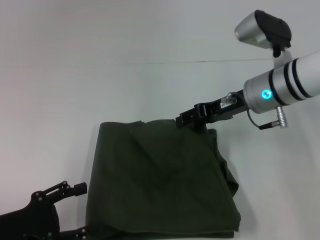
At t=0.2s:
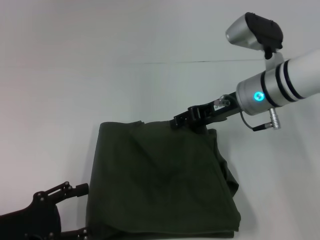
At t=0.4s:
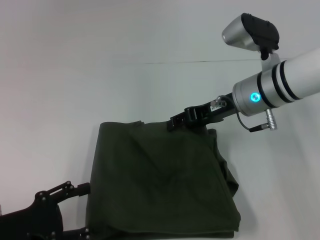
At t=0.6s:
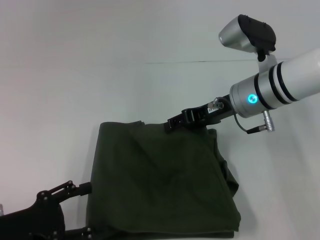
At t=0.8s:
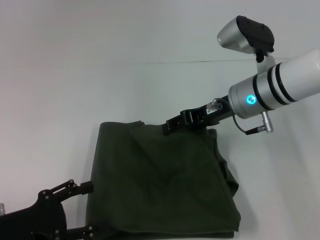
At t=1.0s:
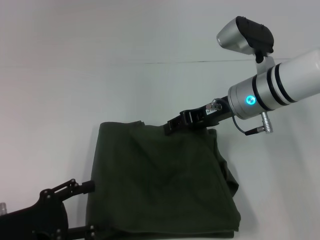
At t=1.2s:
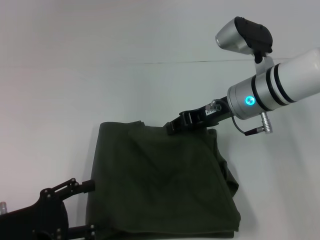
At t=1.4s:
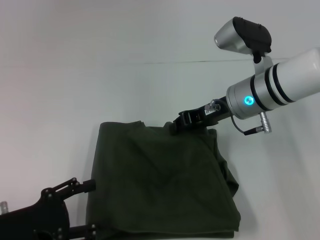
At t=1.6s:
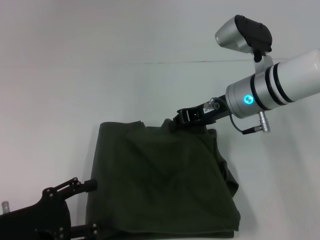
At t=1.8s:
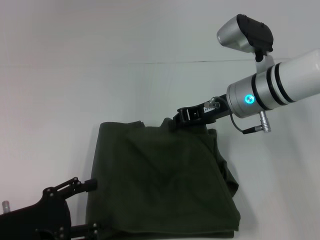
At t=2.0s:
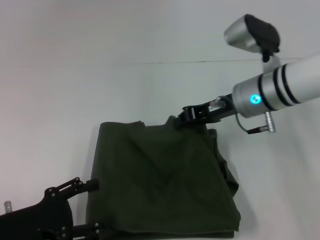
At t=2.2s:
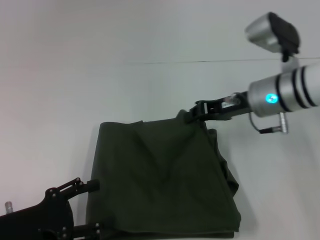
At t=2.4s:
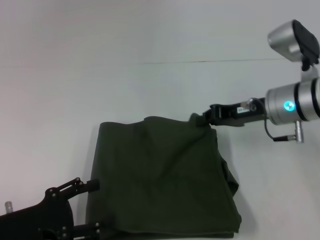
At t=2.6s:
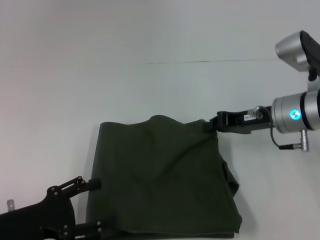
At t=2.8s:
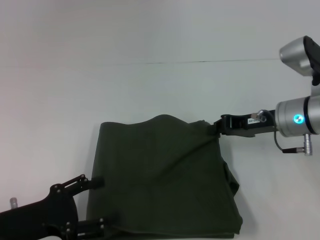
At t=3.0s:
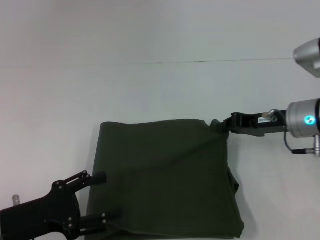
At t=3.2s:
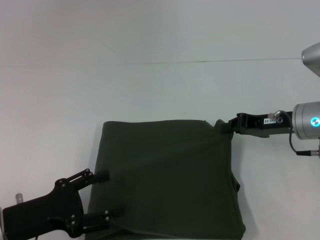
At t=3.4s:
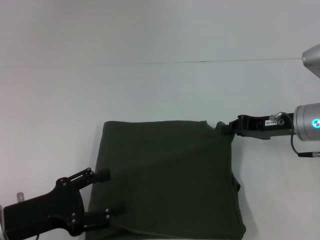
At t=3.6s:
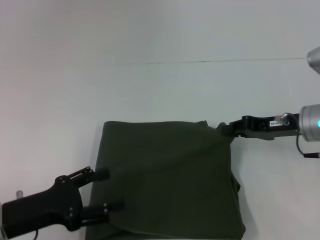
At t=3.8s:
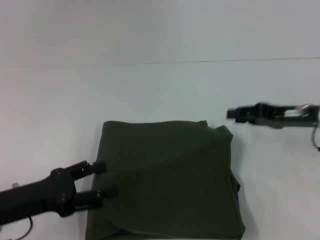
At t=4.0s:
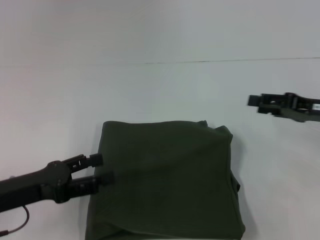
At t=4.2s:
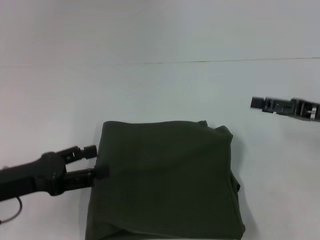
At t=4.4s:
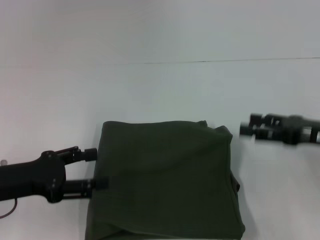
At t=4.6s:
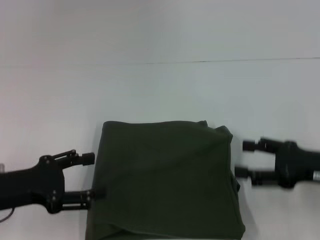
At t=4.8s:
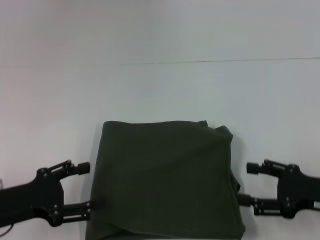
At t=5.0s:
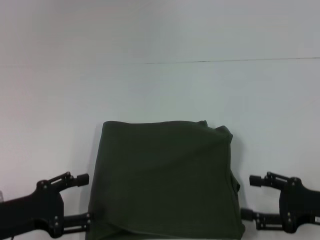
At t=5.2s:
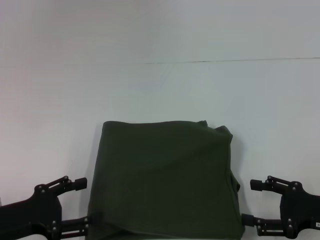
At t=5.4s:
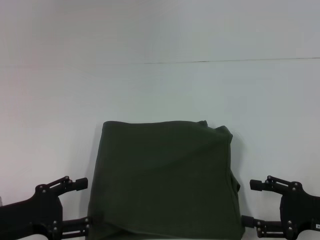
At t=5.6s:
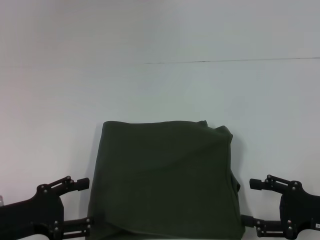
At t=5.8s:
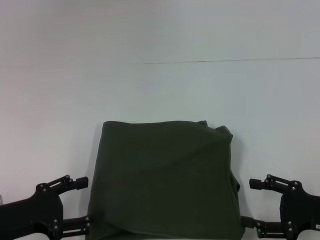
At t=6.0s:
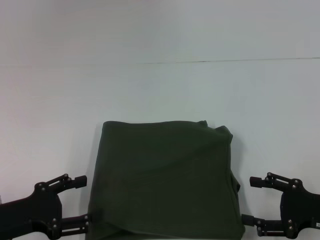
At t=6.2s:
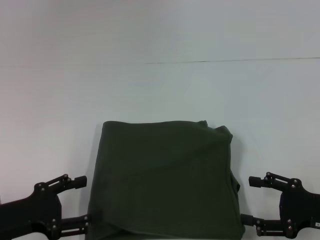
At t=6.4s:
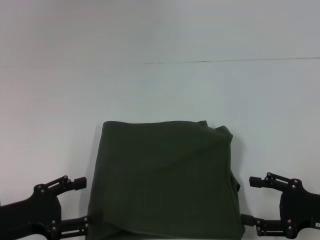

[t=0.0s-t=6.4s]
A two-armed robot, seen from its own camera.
t=0.0s to t=1.6s: The right gripper closes.
t=1.6s to t=3.2s: The right gripper shifts about 10 cm to the right.
t=3.2s to t=4.8s: The right gripper goes roughly 15 cm backward and to the right, and opens its fingers.
t=4.8s to t=6.4s: The grippers make only small movements.
